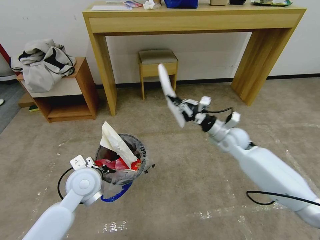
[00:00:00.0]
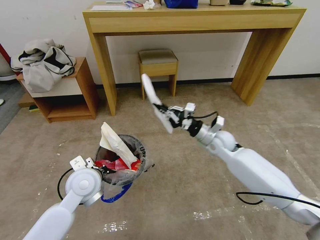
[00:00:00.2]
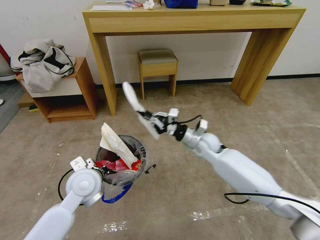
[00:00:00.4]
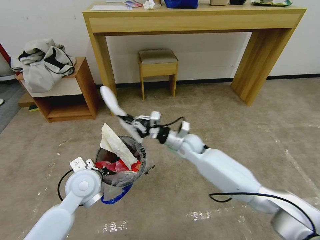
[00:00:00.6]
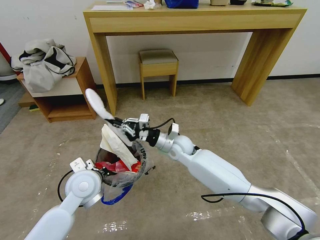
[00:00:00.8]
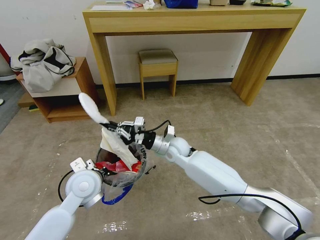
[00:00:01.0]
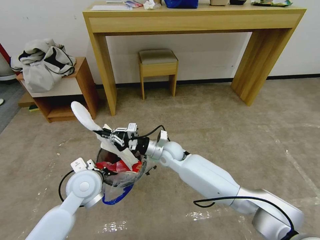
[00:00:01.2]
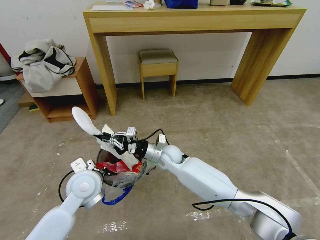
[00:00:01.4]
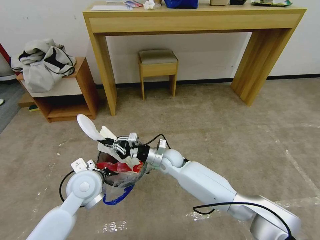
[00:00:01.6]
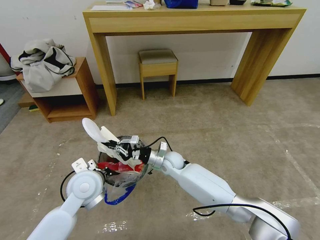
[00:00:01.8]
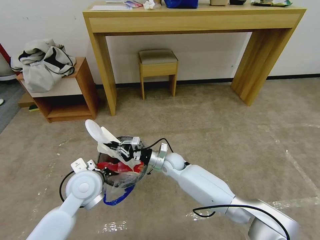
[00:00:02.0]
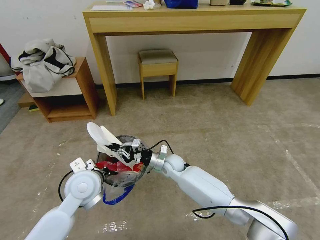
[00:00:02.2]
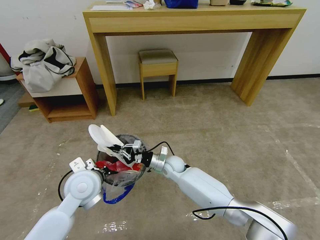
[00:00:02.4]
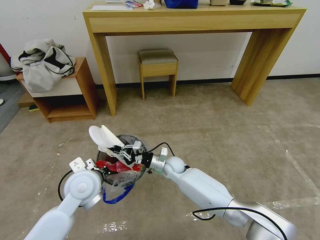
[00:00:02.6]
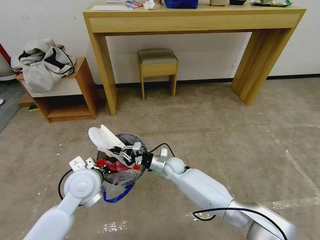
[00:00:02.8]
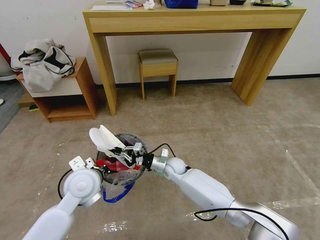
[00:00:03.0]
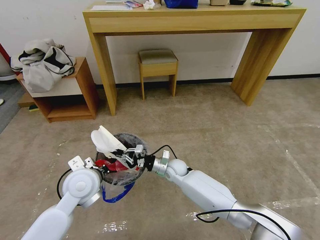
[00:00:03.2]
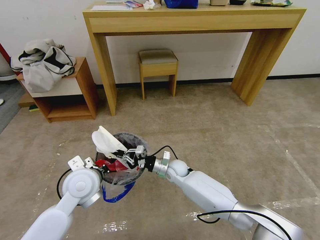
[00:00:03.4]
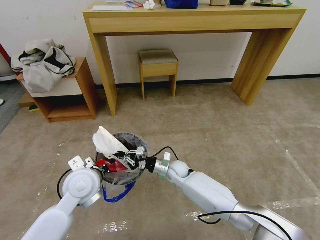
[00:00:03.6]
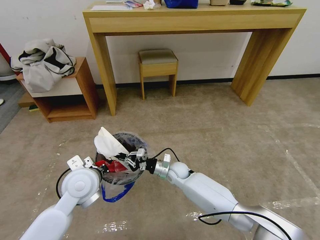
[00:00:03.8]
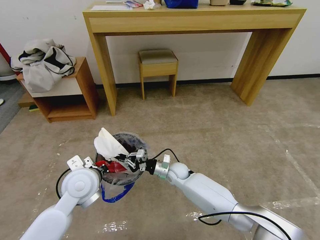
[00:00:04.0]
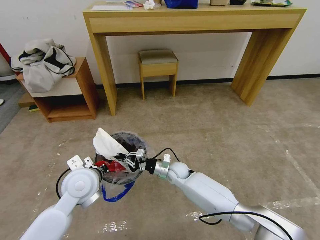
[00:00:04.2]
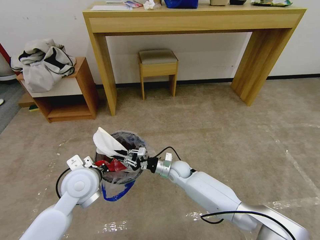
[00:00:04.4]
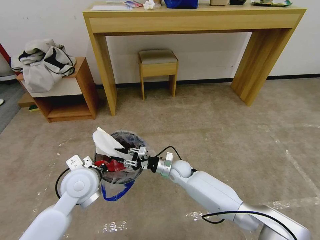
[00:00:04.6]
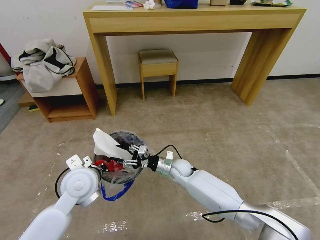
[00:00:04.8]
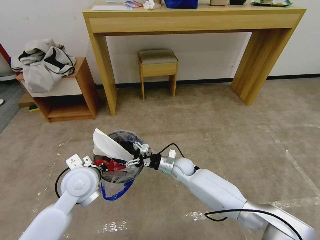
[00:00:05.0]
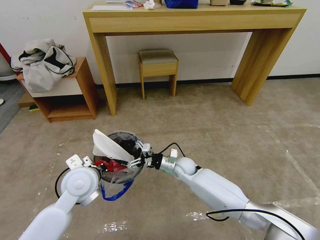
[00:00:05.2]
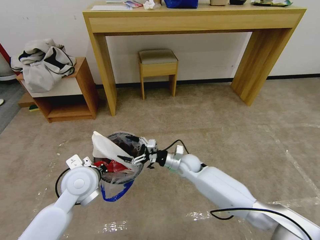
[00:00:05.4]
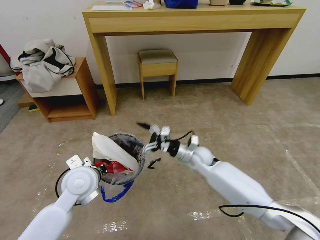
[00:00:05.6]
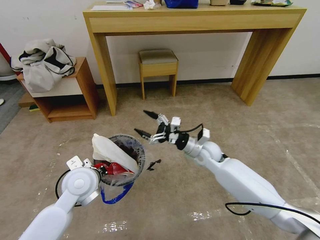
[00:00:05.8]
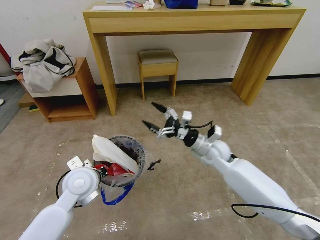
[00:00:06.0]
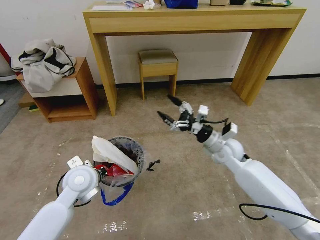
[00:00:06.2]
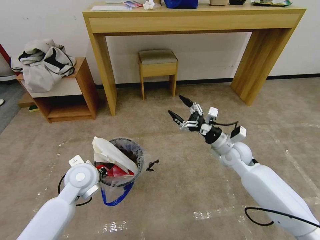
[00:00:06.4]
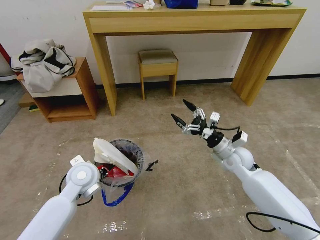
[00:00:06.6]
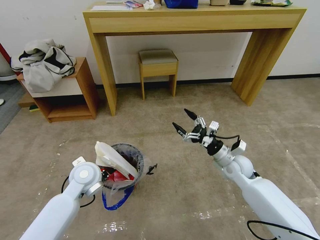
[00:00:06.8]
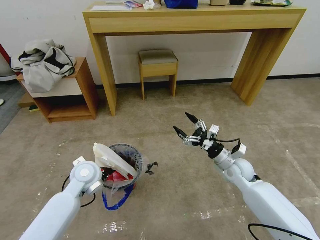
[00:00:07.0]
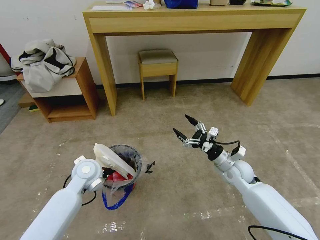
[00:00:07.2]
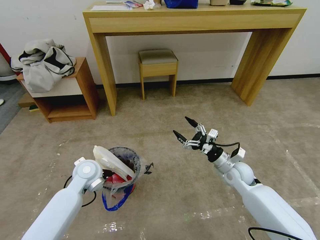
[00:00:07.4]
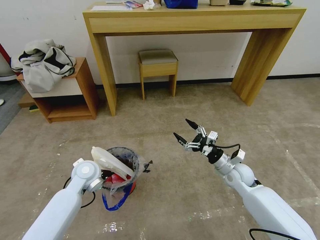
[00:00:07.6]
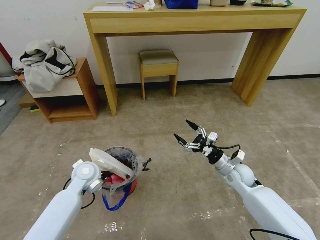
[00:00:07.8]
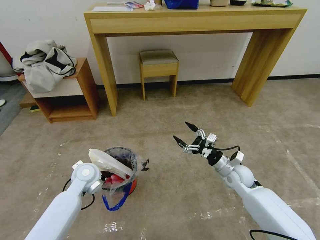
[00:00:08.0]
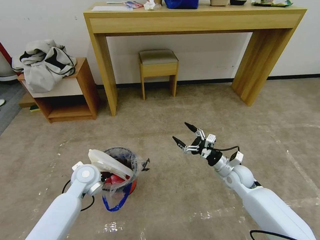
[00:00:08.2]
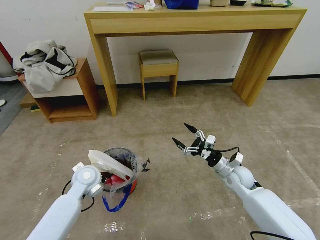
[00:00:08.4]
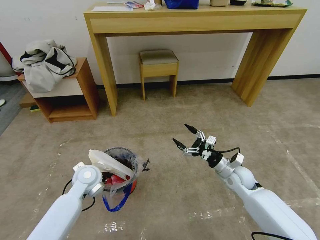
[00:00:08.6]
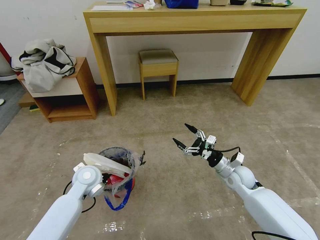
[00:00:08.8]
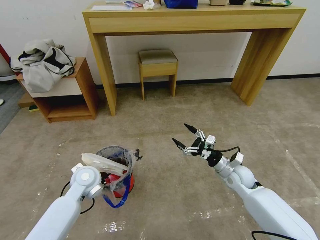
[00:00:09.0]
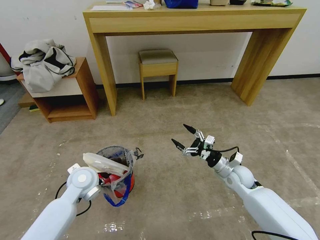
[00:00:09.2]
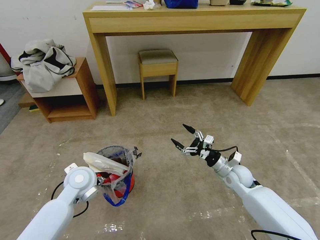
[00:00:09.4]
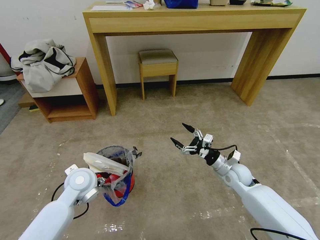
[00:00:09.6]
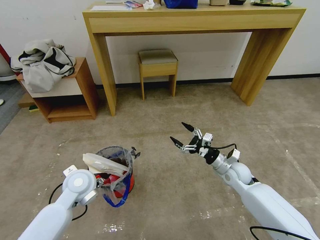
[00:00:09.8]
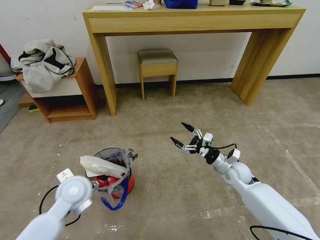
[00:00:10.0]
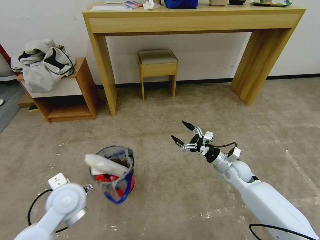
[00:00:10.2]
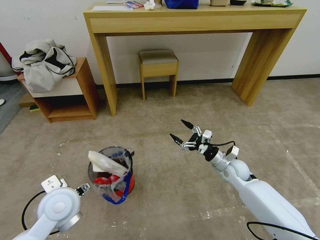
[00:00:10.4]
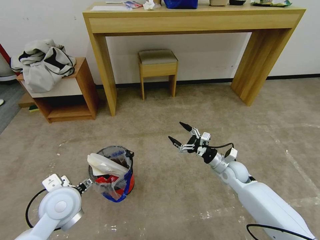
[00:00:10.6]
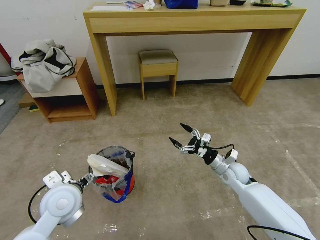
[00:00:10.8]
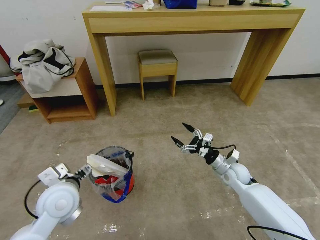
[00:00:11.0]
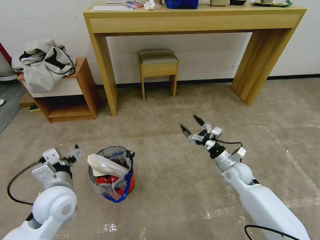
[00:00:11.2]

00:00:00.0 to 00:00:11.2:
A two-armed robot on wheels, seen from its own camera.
Task of the whole recording: Pick up the trash bin and place the garbage on the floor into it.
00:00:00.0 to 00:00:01.6: The right gripper travels to the left and downward by roughly 25 cm.
00:00:01.6 to 00:00:03.2: The right gripper travels downward by roughly 5 cm.
00:00:03.2 to 00:00:04.8: The right gripper opens up.
00:00:04.8 to 00:00:06.4: The right gripper is displaced to the right and upward by approximately 25 cm, and opens up.
00:00:06.4 to 00:00:08.0: The right gripper shifts about 10 cm downward. Meanwhile the left gripper moves downward, approximately 5 cm.
00:00:08.0 to 00:00:09.6: The left gripper moves about 5 cm, and opens.
00:00:09.6 to 00:00:11.2: The left gripper moves backward, approximately 5 cm.

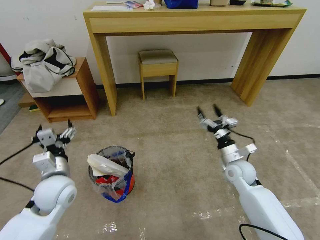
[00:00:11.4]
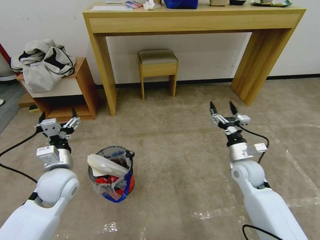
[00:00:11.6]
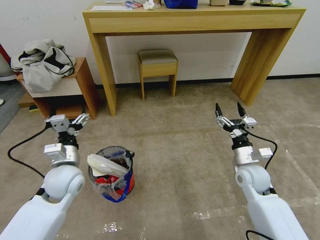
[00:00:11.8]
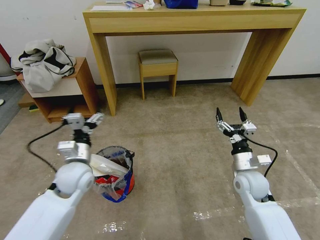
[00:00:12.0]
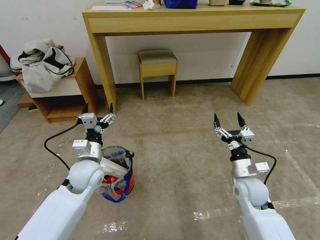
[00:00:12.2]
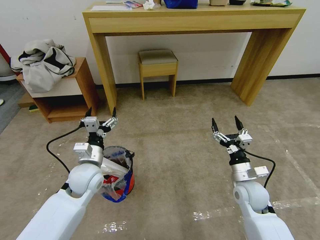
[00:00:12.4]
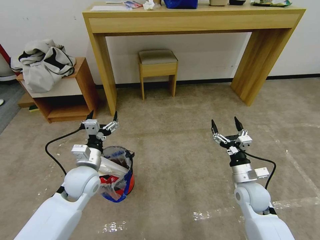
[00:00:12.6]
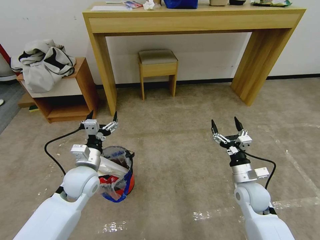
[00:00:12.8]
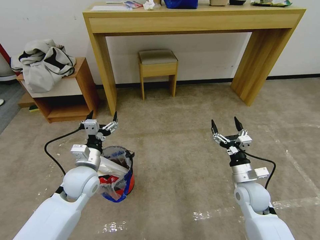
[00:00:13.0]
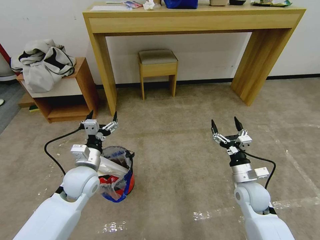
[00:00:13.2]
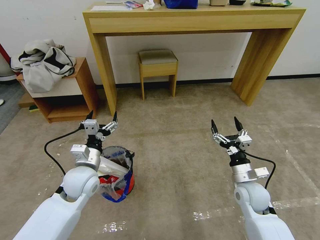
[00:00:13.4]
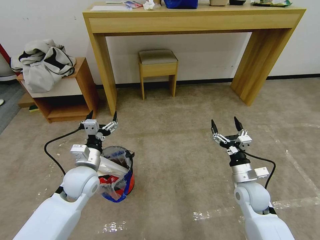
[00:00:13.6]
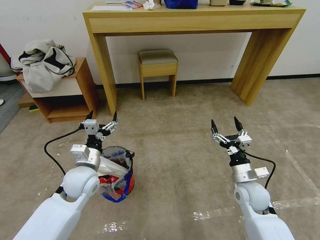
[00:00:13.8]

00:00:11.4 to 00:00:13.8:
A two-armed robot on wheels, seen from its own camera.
Task of the whole recording: Pick up the trash bin and place the garbage on the floor into it.
00:00:11.4 to 00:00:12.6: The right gripper travels backward by roughly 10 cm. The left gripper shifts some 5 cm to the right.
00:00:12.6 to 00:00:13.8: Both grippers stay put.
